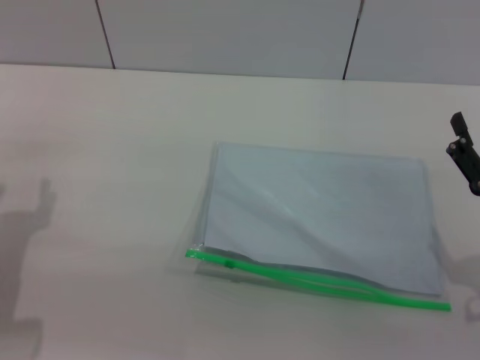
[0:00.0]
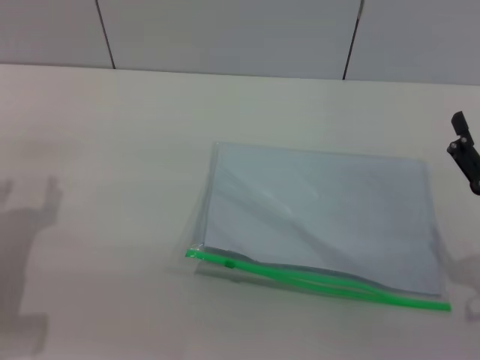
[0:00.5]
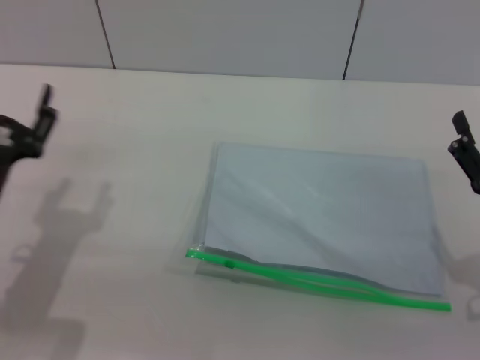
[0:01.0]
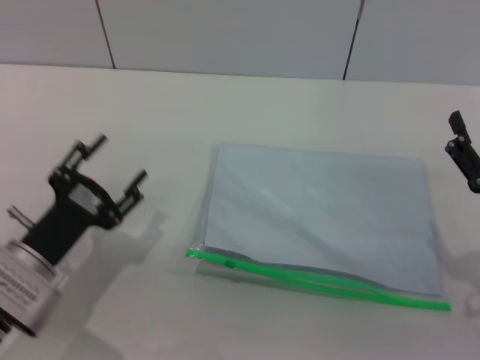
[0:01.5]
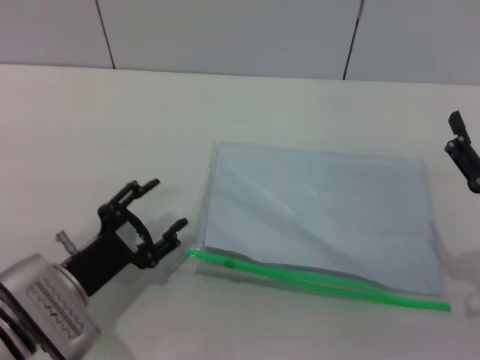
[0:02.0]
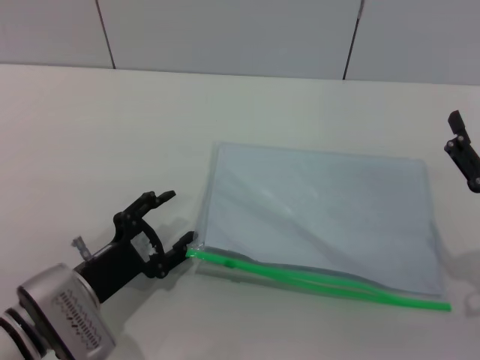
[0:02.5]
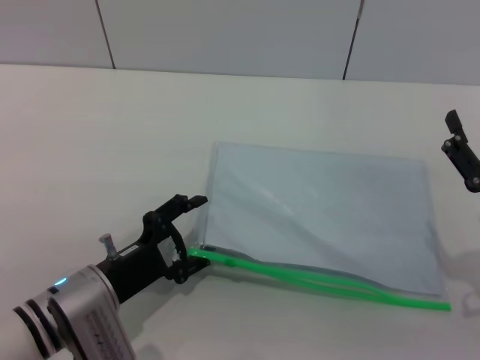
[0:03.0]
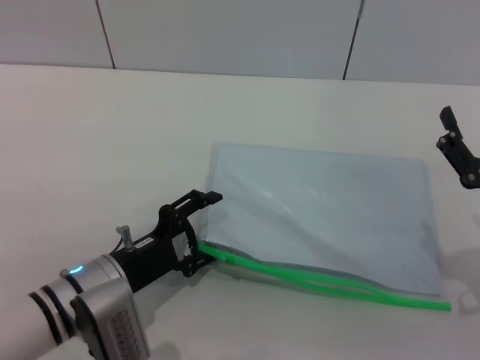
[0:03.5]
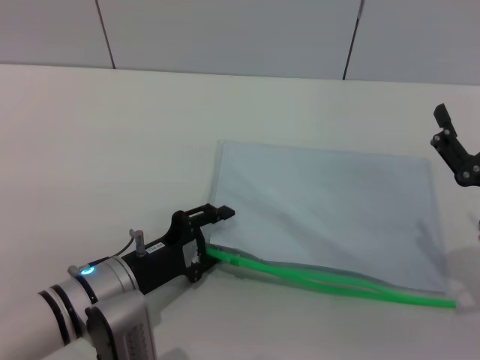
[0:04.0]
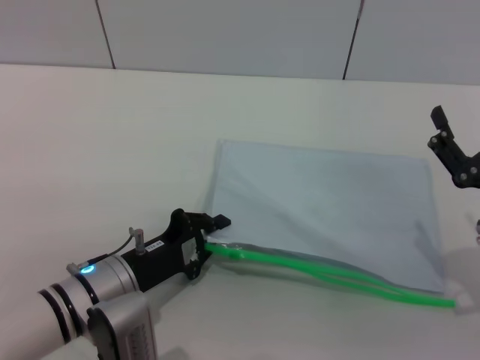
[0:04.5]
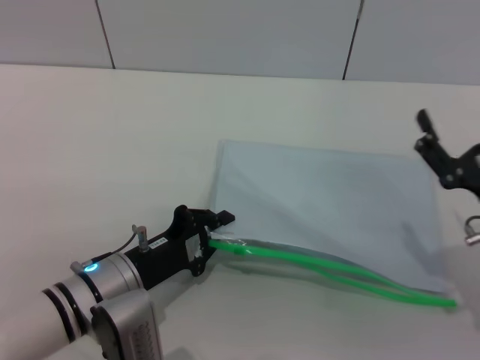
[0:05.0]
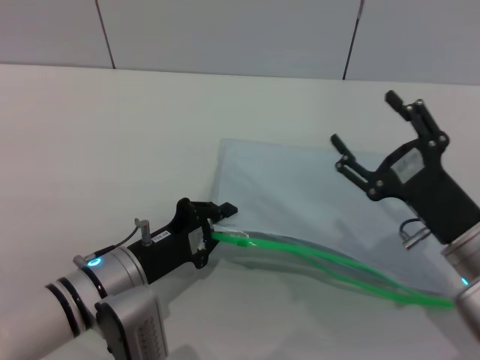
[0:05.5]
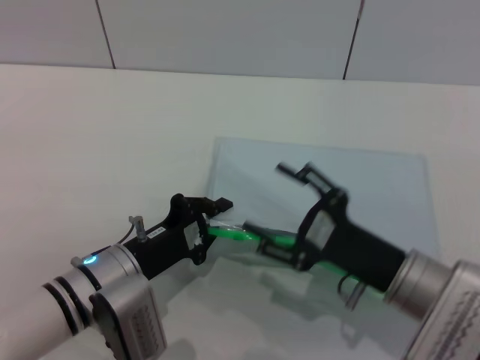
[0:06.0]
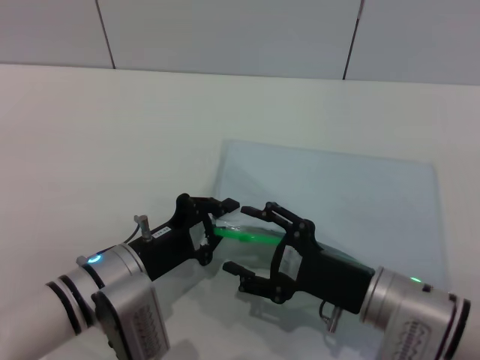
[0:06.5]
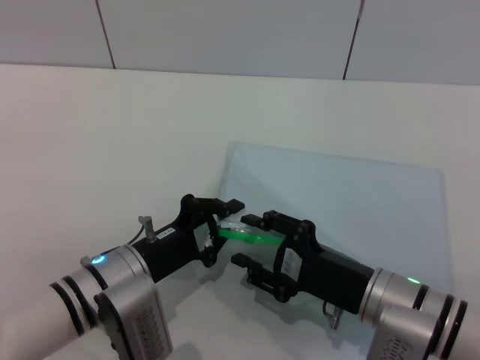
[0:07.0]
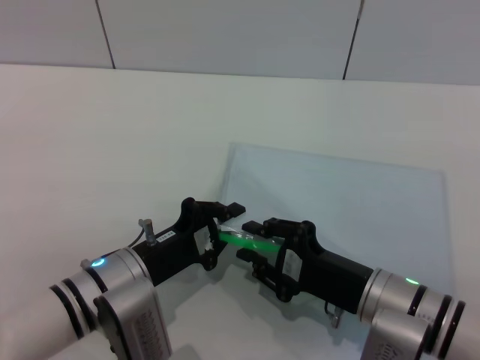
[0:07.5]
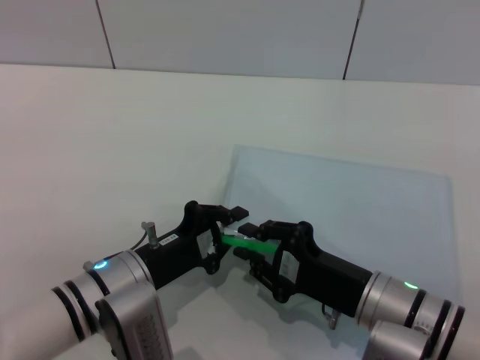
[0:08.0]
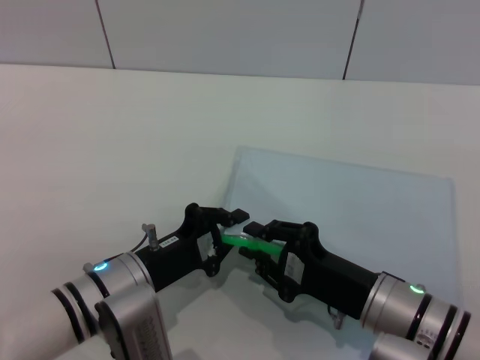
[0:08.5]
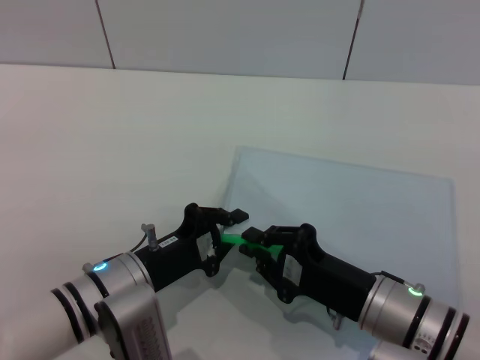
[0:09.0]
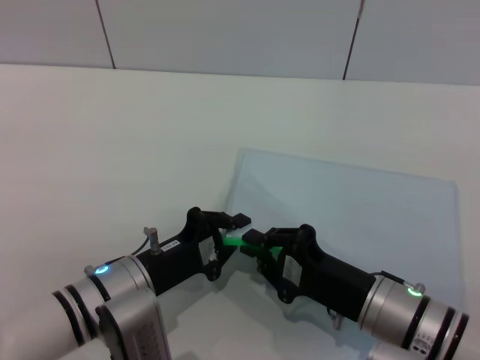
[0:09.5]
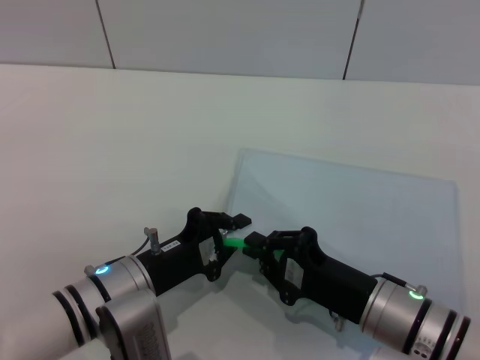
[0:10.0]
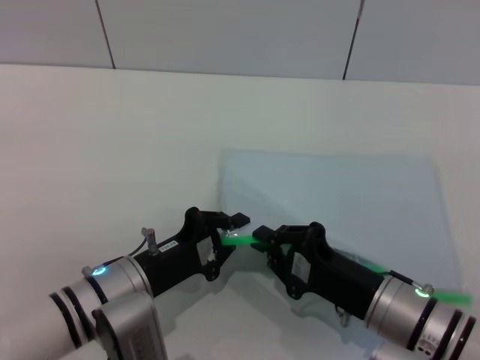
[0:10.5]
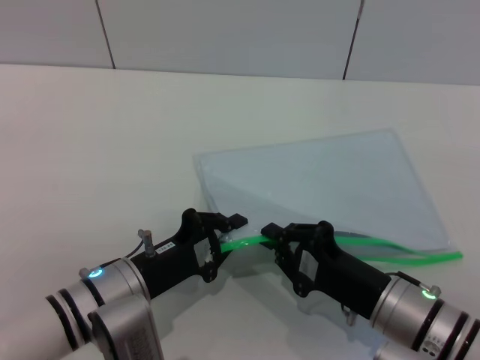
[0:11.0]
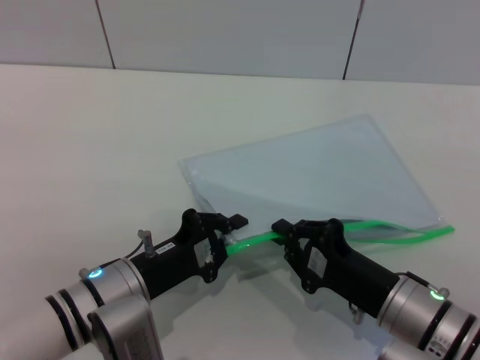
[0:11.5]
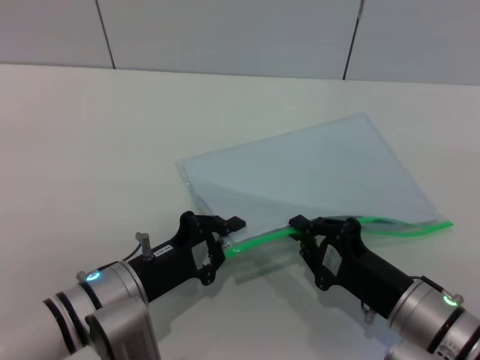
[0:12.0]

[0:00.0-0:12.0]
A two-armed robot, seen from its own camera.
Step, 0:00.0 to 0:05.5: Pick up the transparent plastic bag with the left gripper.
0:00.0 to 0:02.0: The left gripper shifts some 10 cm to the right and downward.
0:04.0 to 0:06.0: The left gripper closes its fingers. The right gripper shifts some 10 cm to the left.
0:06.0 to 0:08.0: The right gripper closes.
0:08.0 to 0:12.0: The grippers make only small movements.

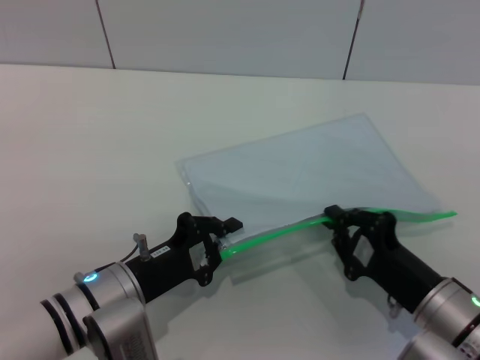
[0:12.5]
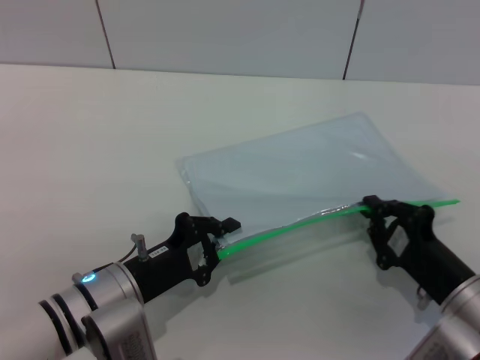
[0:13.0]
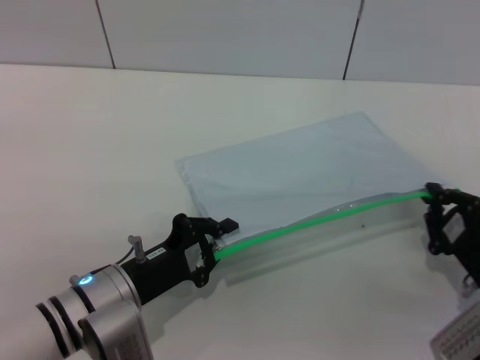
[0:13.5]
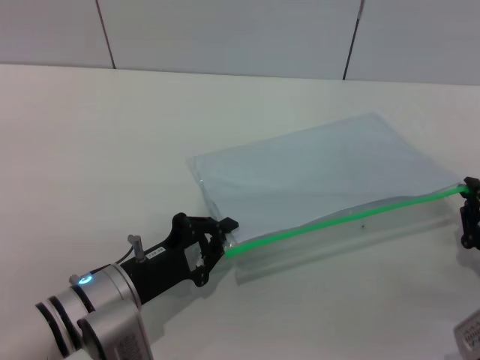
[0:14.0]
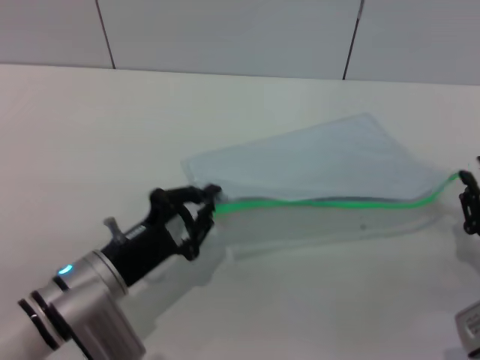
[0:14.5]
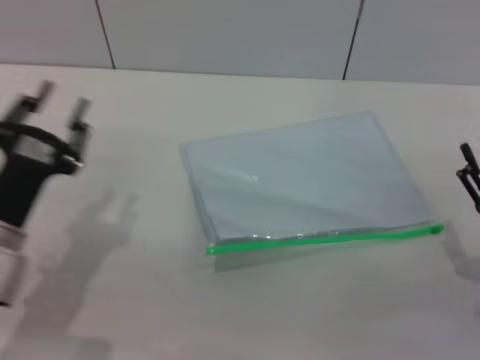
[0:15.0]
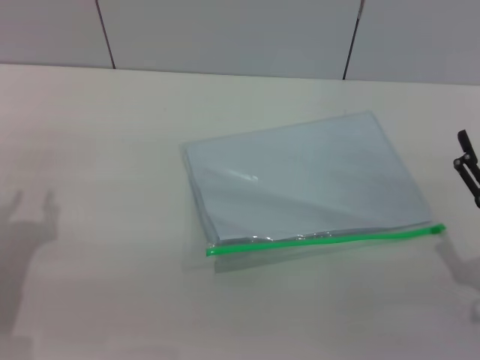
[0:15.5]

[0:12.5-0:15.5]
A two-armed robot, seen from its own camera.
0:12.5 to 0:14.0: The right gripper moves to the right, about 10 cm.
0:14.0 to 0:15.5: The right gripper moves about 5 cm, and opens up. Meanwhile the left gripper is displaced to the left and upward by approximately 15 cm, and opens up.
